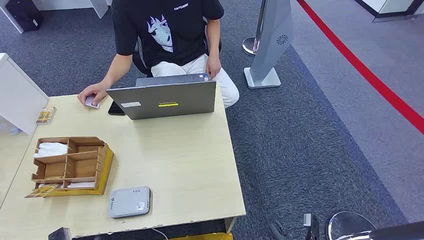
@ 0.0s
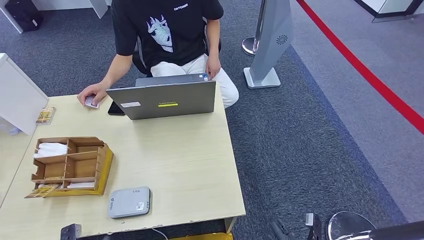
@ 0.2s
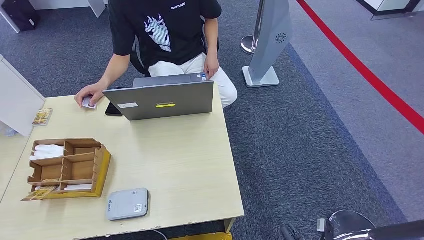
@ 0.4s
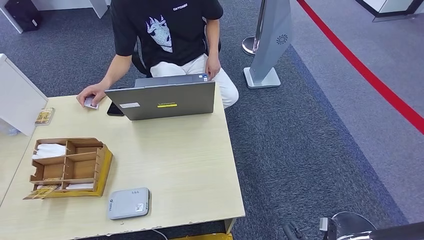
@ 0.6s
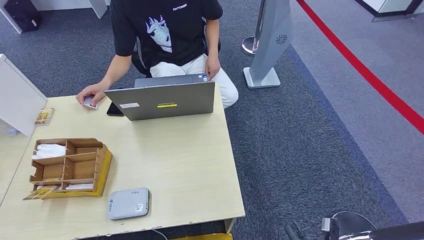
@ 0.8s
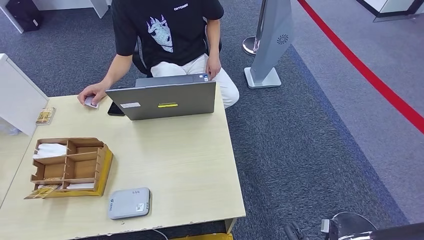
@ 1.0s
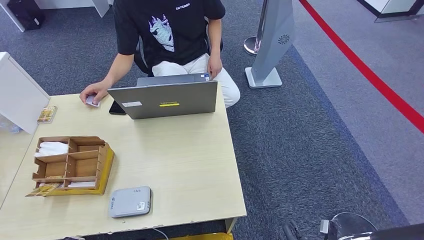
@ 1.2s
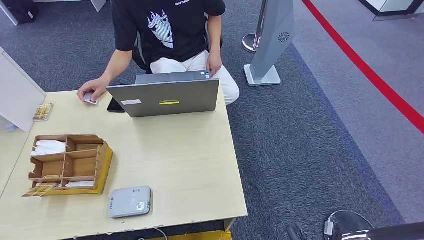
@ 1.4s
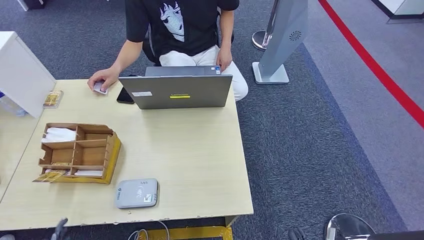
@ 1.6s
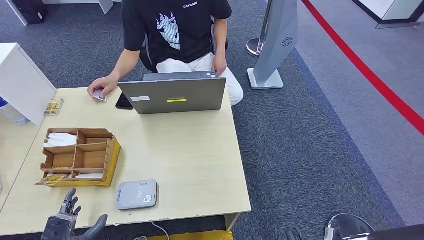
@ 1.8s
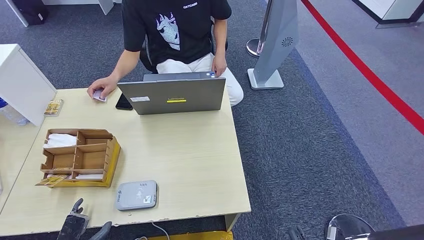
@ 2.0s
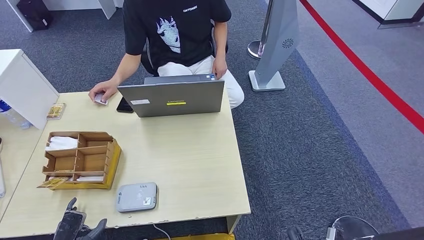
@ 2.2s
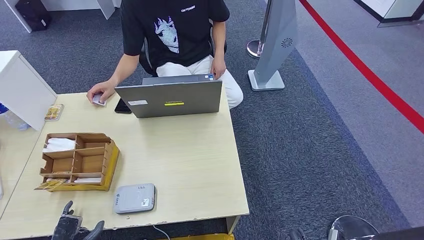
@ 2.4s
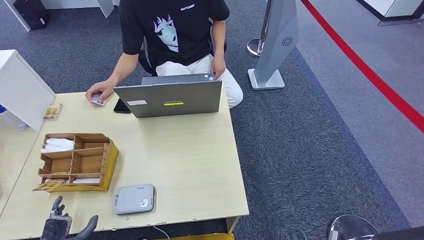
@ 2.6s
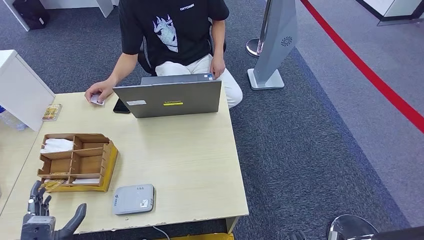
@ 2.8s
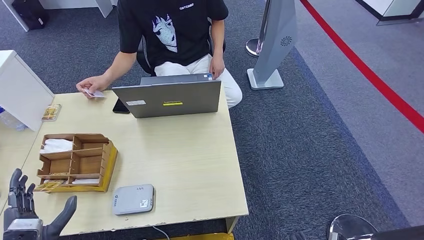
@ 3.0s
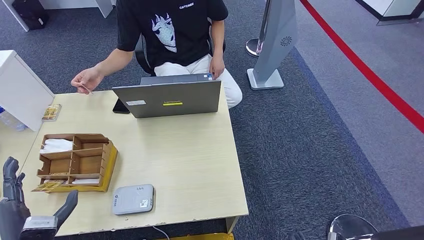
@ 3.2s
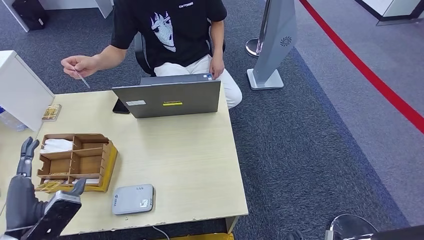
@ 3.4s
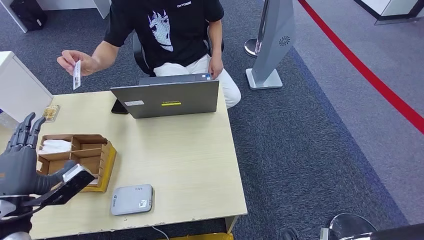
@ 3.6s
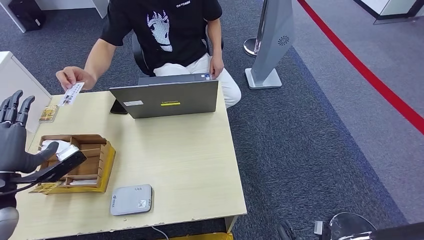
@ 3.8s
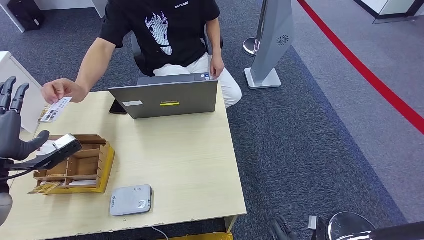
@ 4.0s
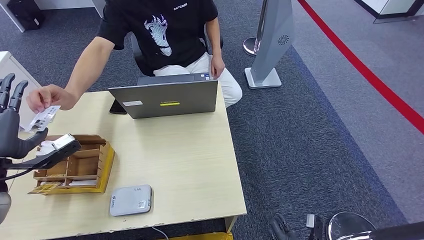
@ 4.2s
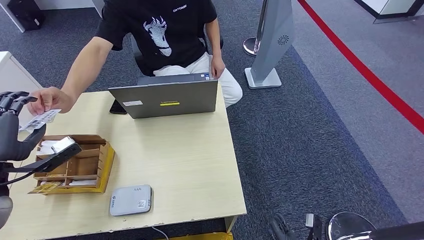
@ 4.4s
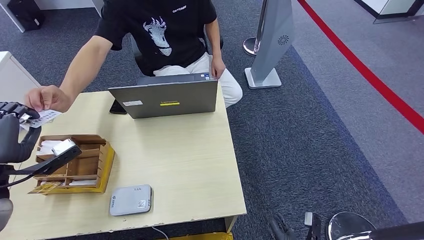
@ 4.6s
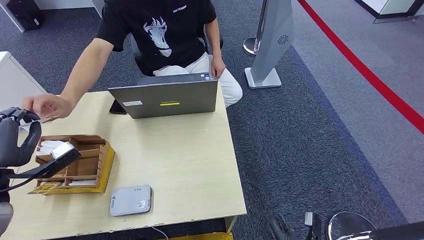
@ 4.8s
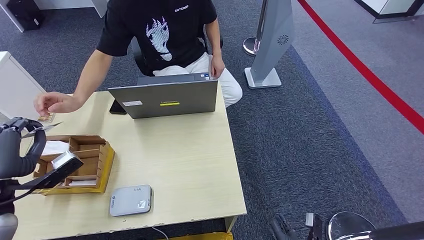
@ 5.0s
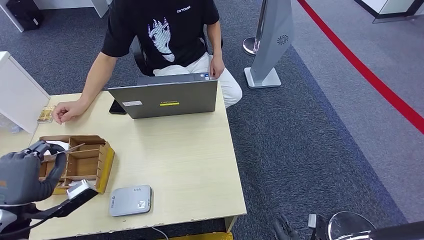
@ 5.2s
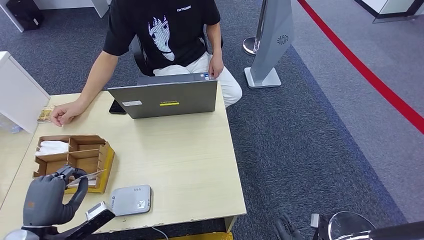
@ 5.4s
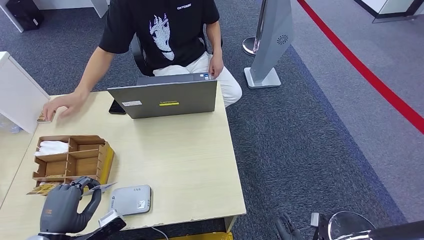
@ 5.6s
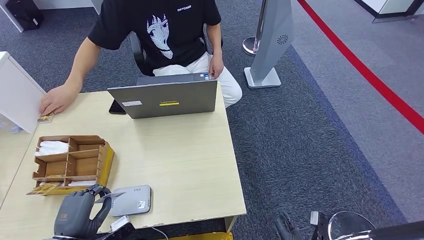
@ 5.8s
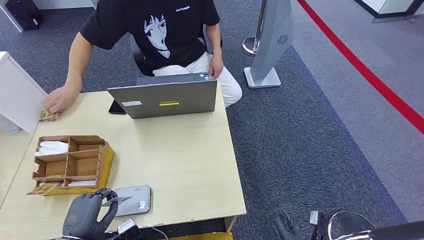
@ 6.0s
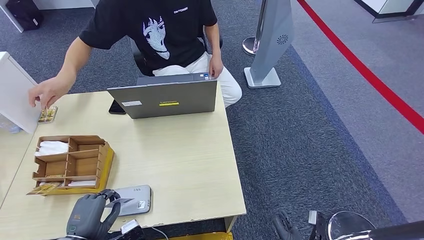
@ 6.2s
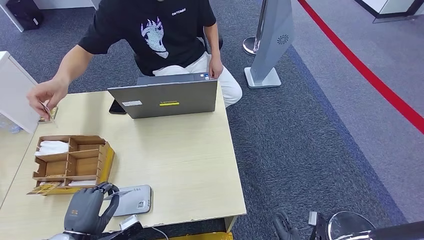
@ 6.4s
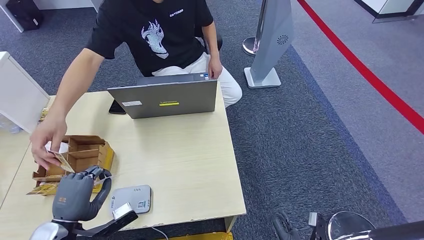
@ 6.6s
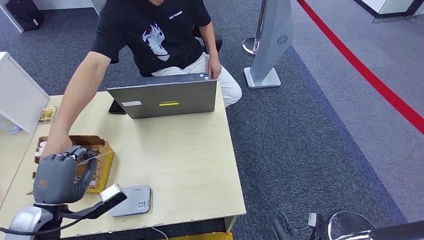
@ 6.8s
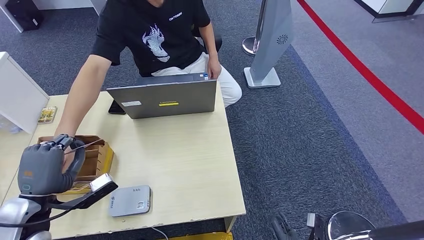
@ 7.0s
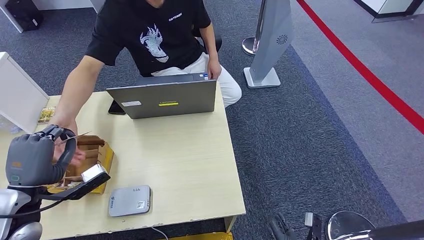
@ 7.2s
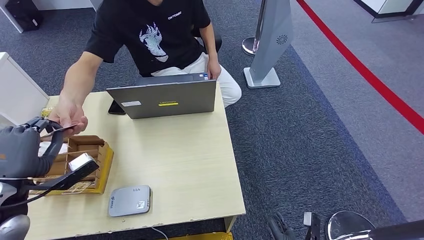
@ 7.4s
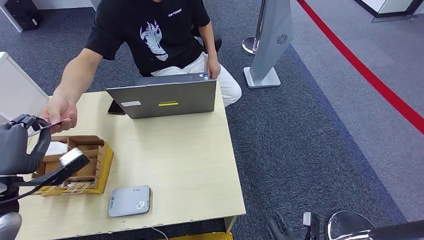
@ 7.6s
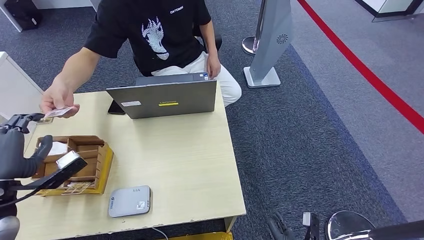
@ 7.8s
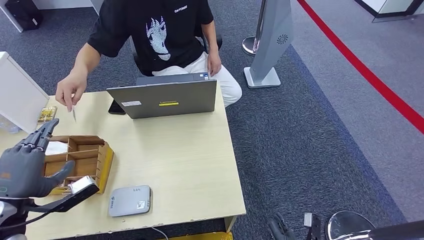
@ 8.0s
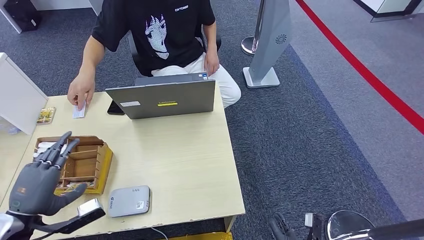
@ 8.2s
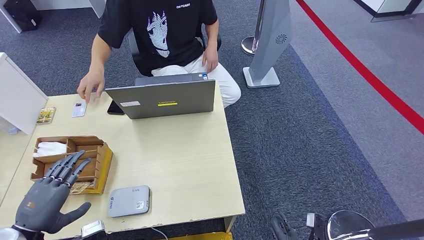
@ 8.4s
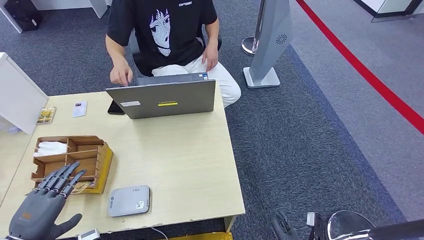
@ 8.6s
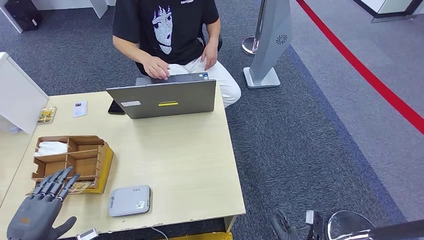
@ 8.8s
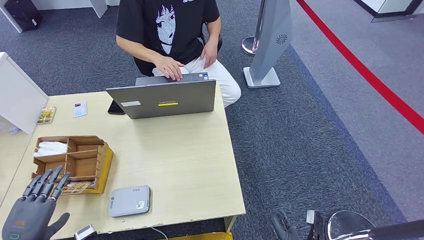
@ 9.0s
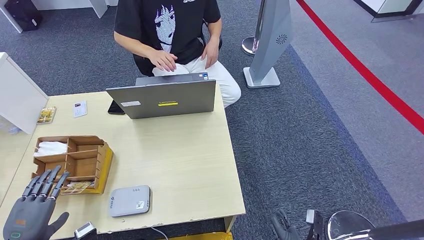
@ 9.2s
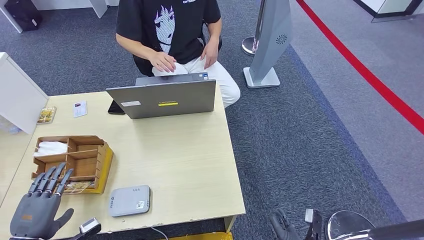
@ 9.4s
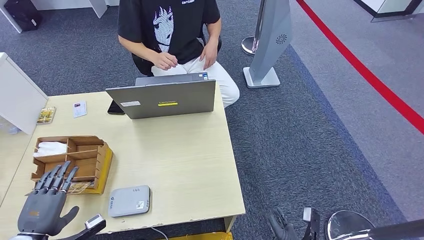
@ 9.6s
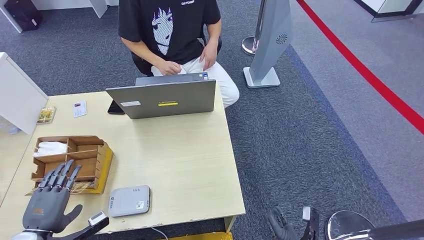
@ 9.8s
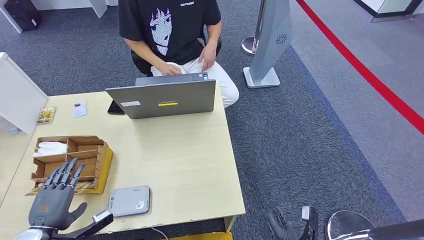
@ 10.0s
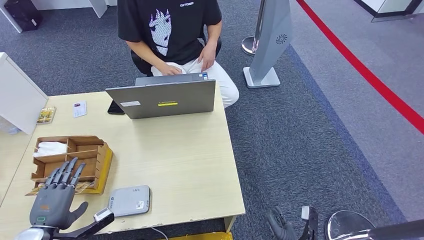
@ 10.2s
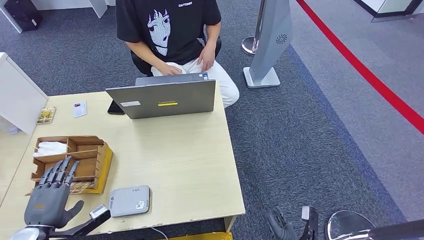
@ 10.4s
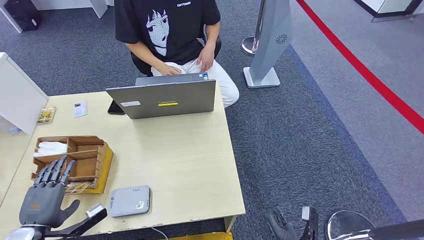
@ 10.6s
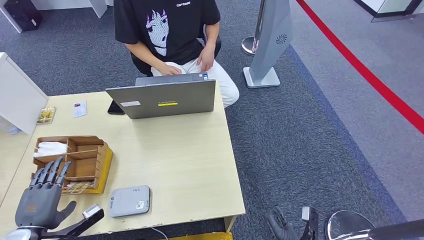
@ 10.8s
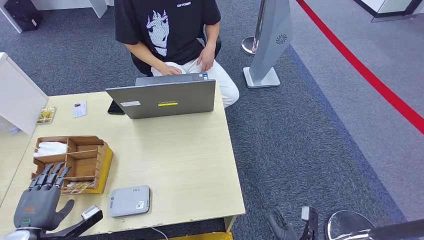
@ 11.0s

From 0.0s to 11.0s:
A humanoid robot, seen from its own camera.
Step, from 0.0s to 5.4s: Take the ID card from the person's hand.
Step, from 5.6s to 6.2s: Place the ID card on the card reader.
Step, from 6.4s to 8.0s: Hand the ID card to the person.
From 4.8s to 6.2s: The left hand heads downward, backward and to the right, covering approximately 20 cm.
From 6.2s to 7.8s: The left hand is displaced upward, forward and to the left by some 20 cm.
From 9.4s to 11.0s: The hands make only small movements.

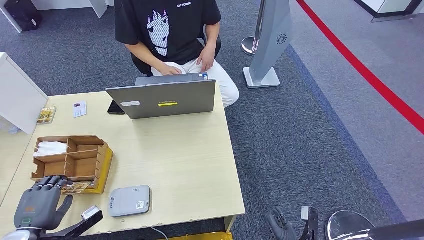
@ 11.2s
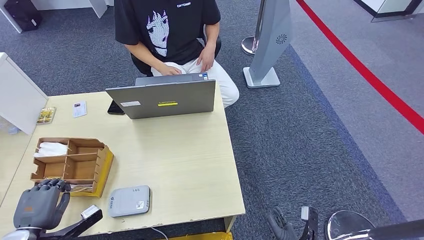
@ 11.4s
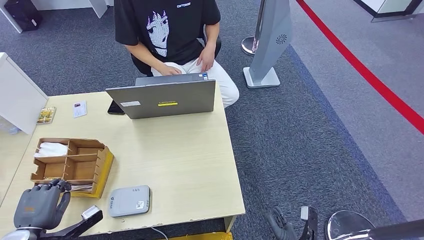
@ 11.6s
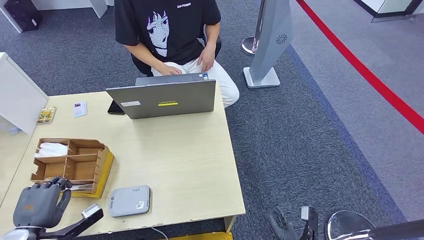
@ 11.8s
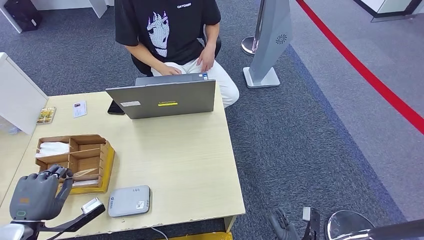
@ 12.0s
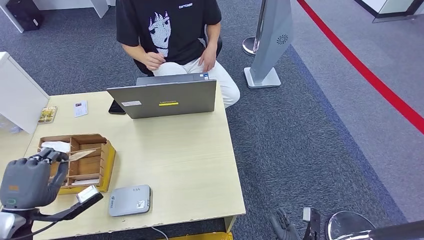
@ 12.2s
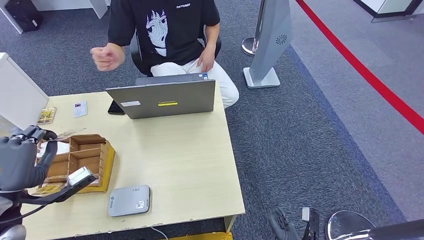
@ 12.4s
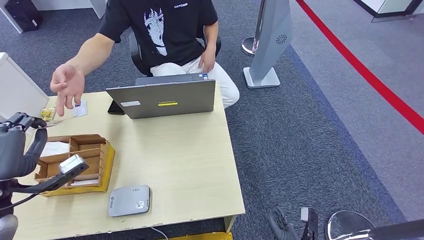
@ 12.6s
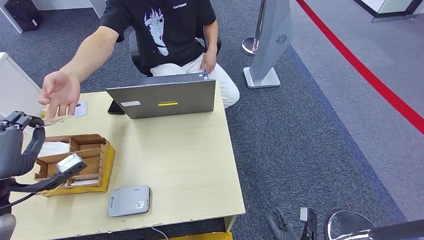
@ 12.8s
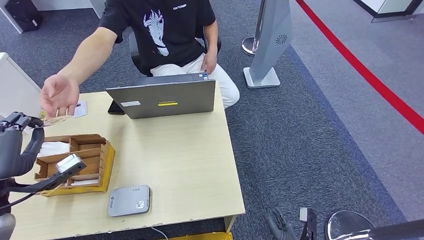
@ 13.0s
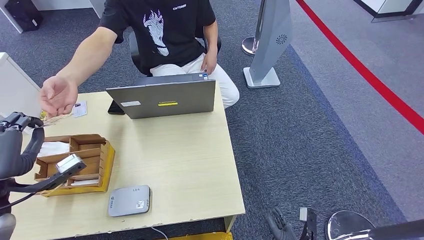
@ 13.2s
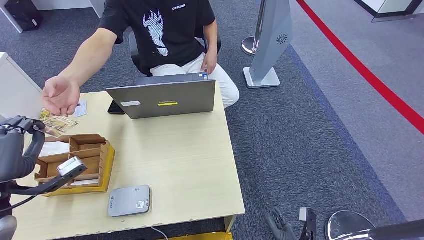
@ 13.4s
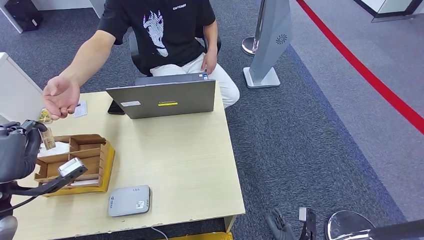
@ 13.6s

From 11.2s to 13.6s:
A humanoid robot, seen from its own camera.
Step, from 12.4s to 13.6s: Hand the room key to the person.
From 11.2s to 12.4s: The left hand goes approximately 15 cm upward and forward.
From 12.4s to 13.6s: The hands move only a little.

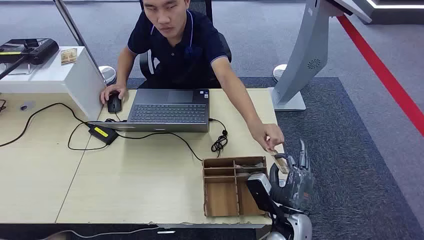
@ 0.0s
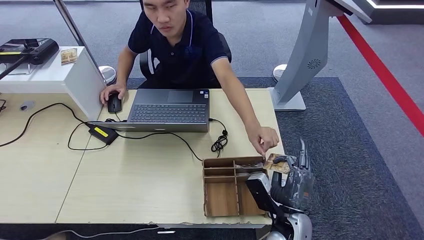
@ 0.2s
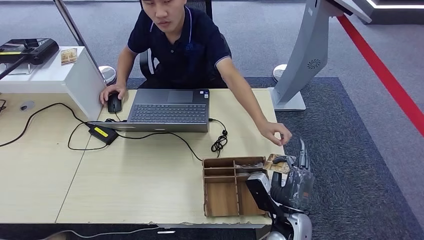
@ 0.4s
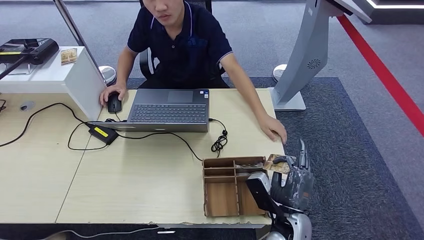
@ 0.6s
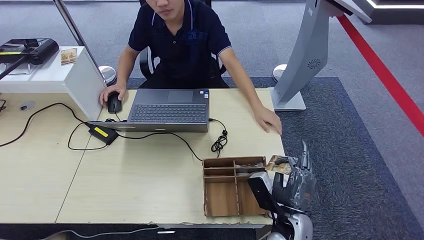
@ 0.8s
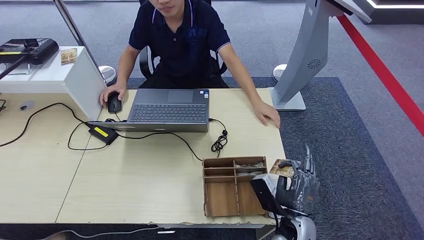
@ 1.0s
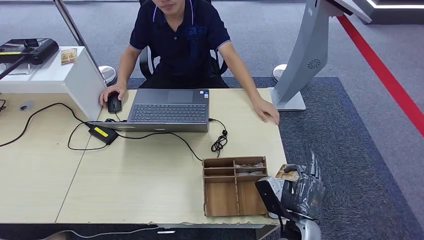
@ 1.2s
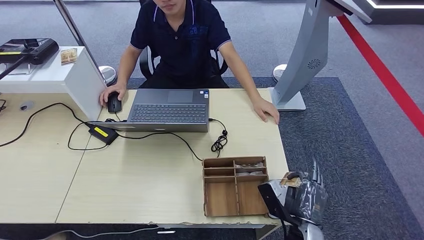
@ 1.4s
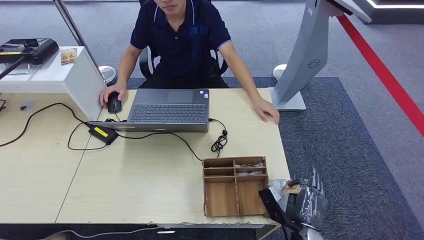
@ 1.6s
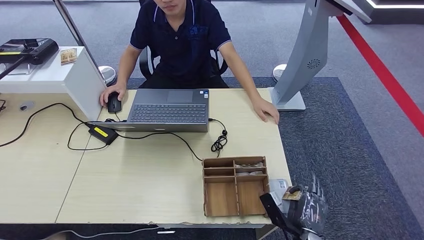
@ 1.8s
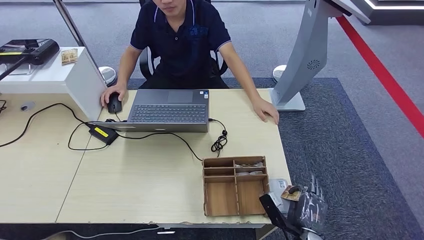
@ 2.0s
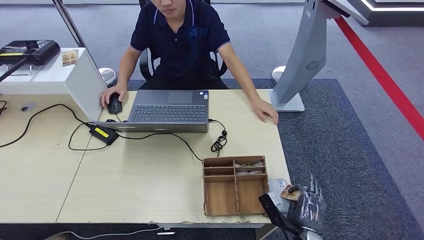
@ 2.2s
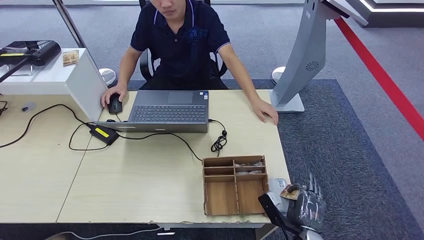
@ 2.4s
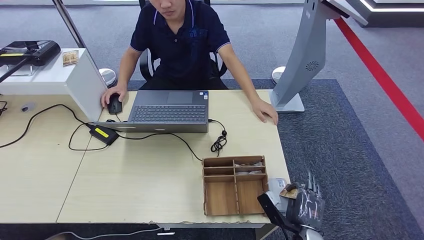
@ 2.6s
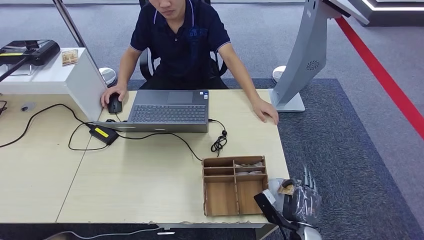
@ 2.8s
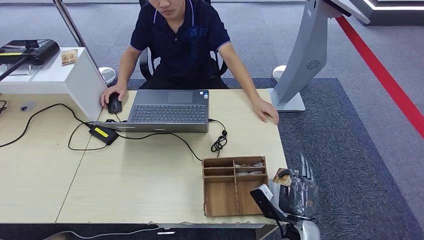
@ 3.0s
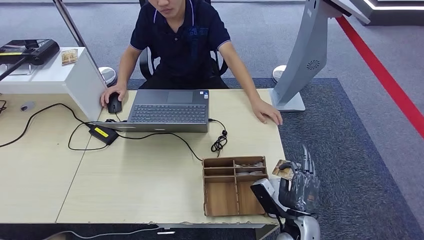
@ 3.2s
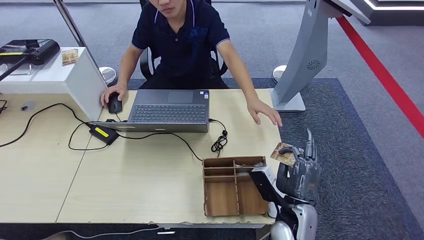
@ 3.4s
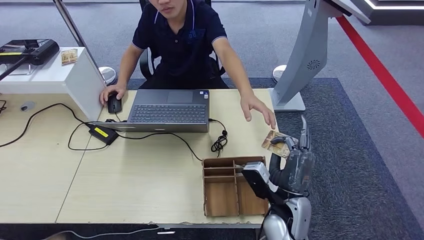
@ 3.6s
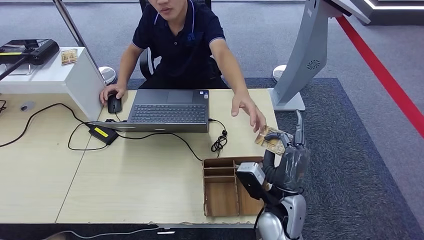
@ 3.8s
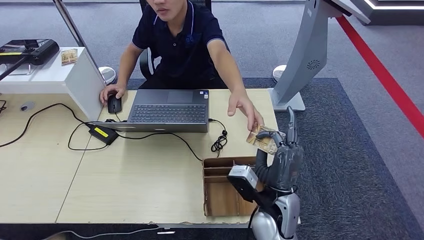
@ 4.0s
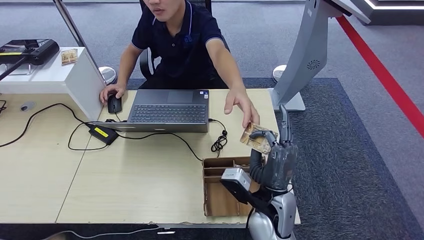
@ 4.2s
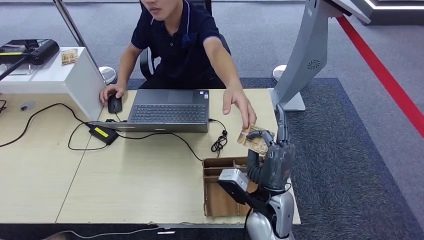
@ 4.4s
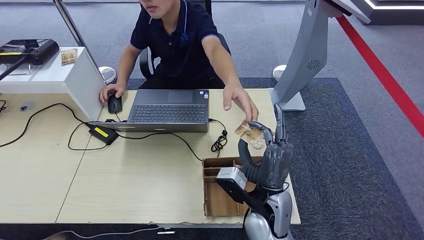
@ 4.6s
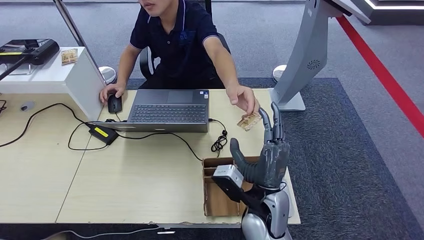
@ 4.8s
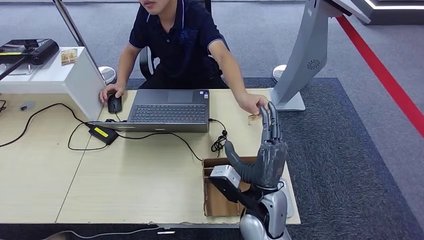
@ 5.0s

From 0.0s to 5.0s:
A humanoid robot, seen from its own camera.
Step, from 0.0s to 1.0s: Take the ID card from the person's hand.
Step, from 1.2s to 3.2s: Place the ID card on the card reader.
From 1.6s to 3.4s: The right hand is displaced upward and forward by about 10 cm.
From 3.4s to 5.0s: The right hand shifts about 10 cm to the left and upward.
